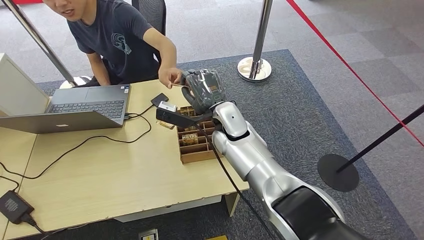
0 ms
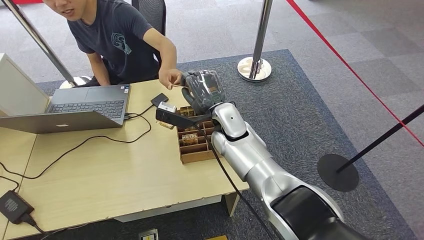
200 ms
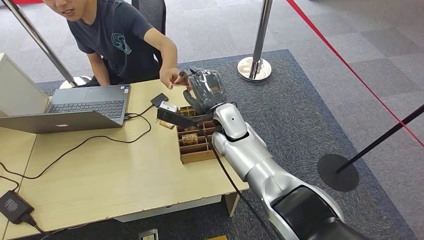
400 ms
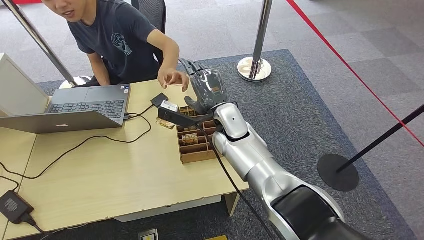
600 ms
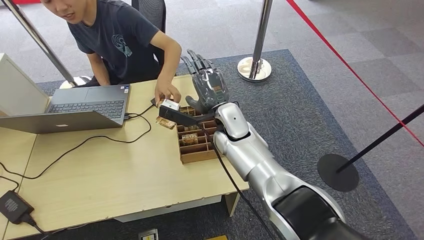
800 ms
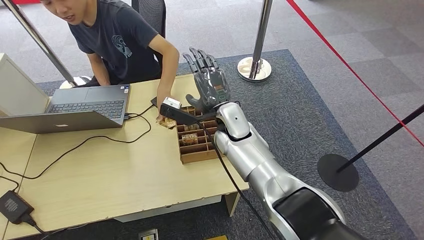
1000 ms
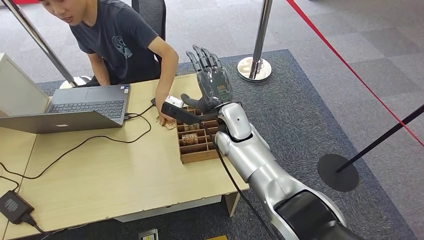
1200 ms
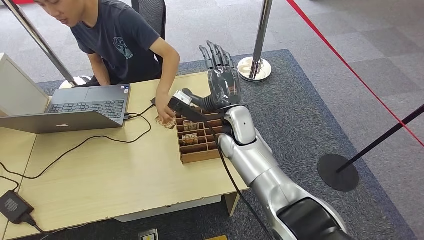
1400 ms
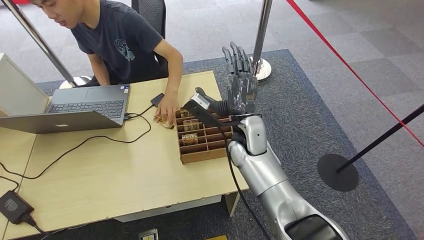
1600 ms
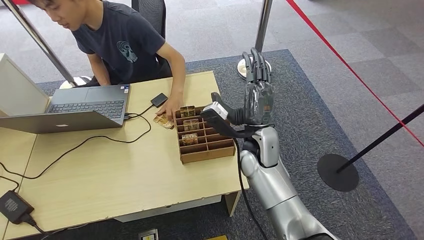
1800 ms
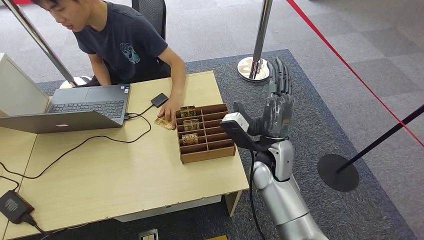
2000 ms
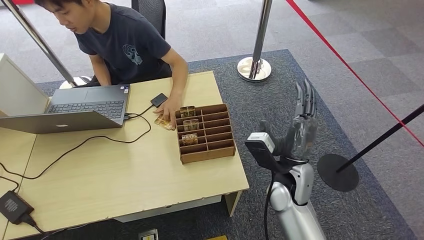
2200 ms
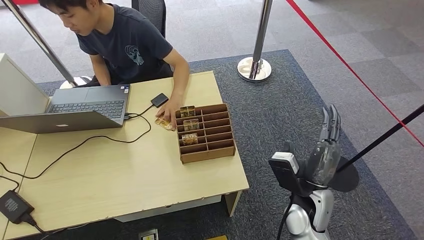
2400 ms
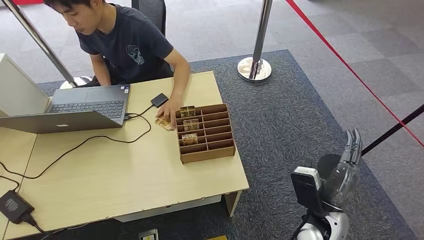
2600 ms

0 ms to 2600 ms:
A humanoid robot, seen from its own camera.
Step, 0 ms to 2400 ms: Hand the key card to the target.
0 ms to 1200 ms: The hands make only small movements.
1200 ms to 2600 ms: The right hand is displaced backward, to the right and downward by roughly 25 cm.

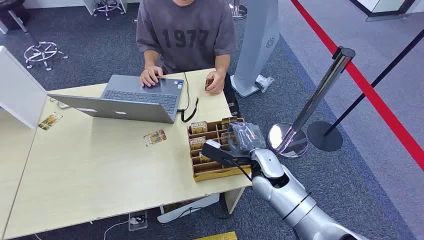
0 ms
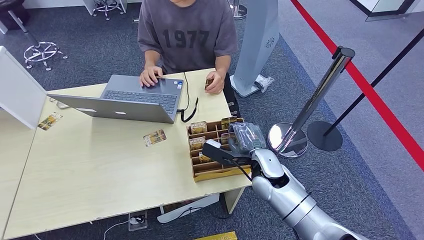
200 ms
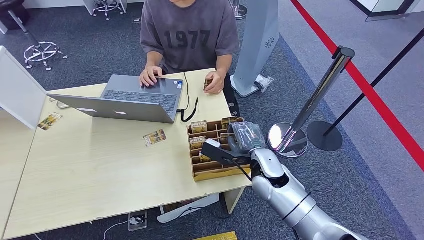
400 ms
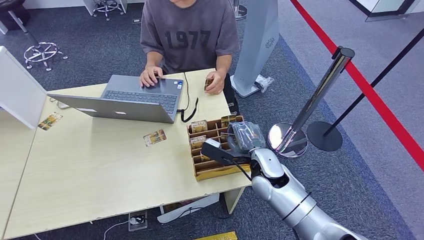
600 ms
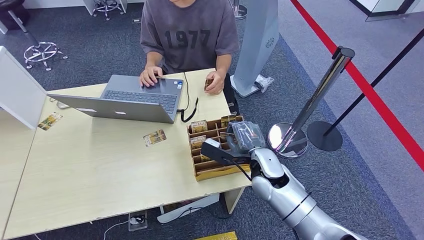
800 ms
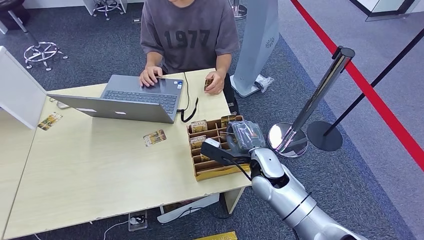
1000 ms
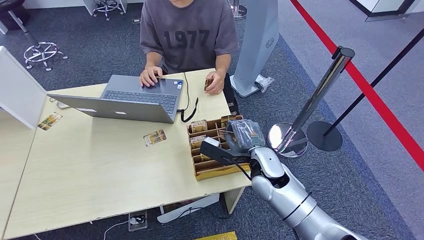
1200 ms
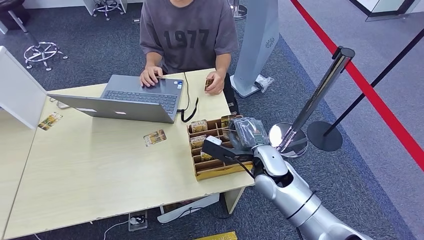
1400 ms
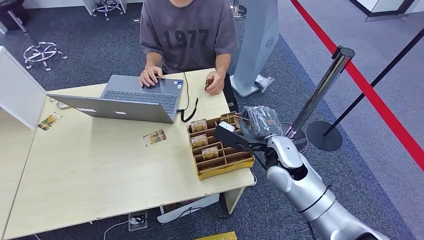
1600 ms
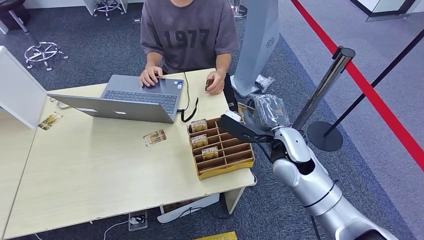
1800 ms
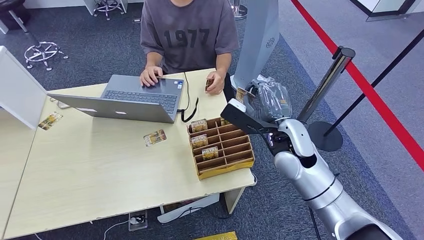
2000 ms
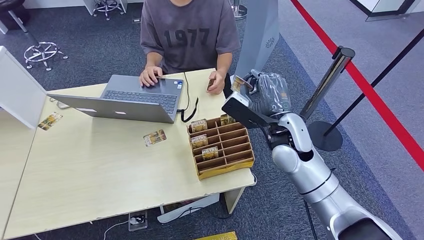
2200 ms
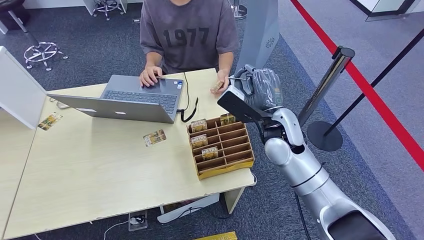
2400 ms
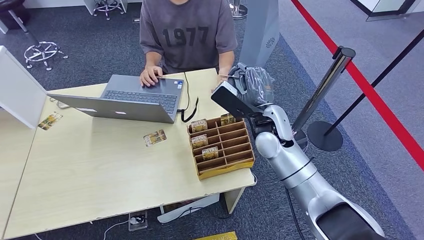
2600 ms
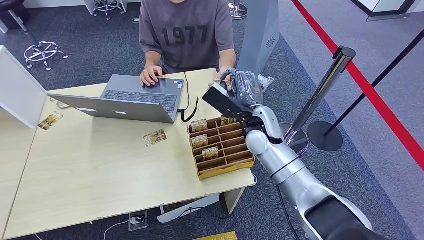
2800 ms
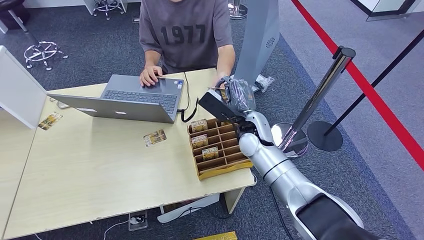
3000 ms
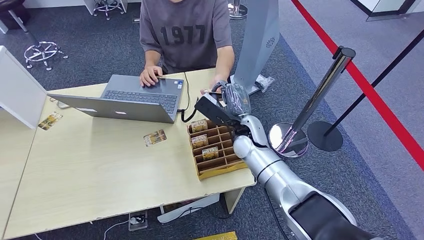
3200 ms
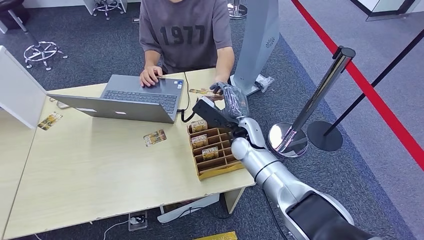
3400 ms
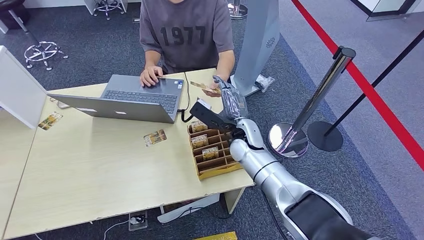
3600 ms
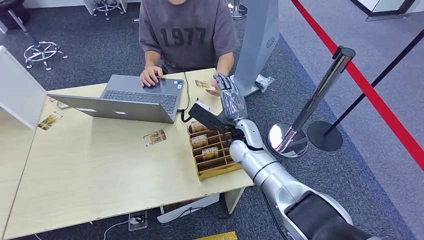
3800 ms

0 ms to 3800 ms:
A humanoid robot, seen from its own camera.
Step, 2600 ms to 3800 ms: Hand the key card to the target.
1200 ms to 2600 ms: The right hand is displaced upward and forward by some 10 cm.
2600 ms to 3800 ms: The right hand is displaced downward by some 5 cm.
